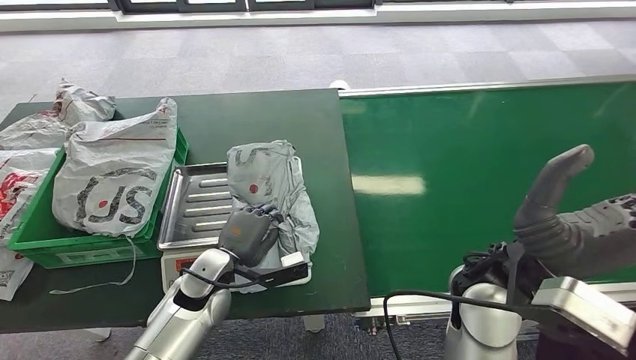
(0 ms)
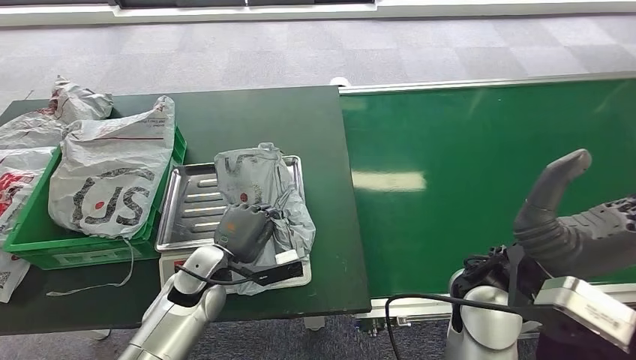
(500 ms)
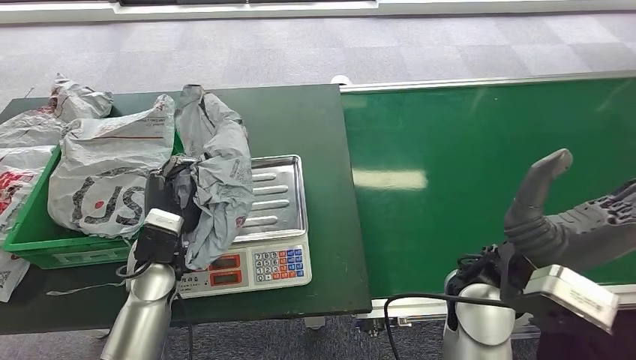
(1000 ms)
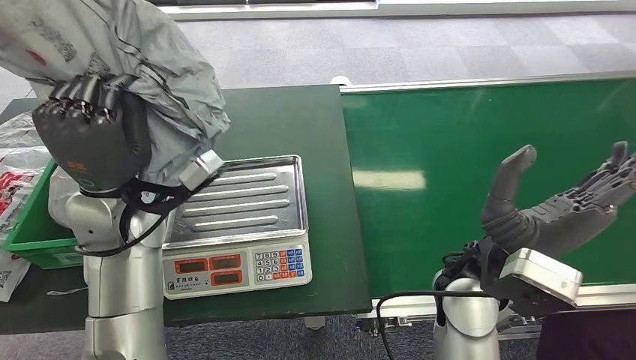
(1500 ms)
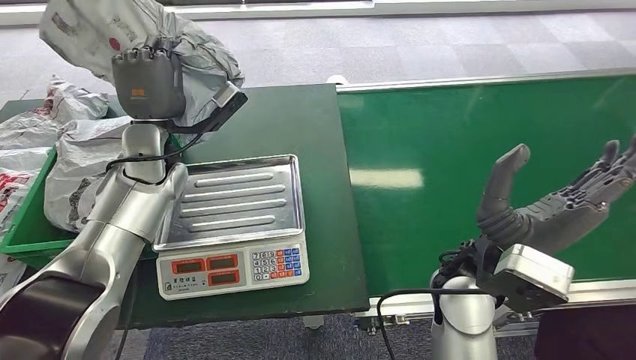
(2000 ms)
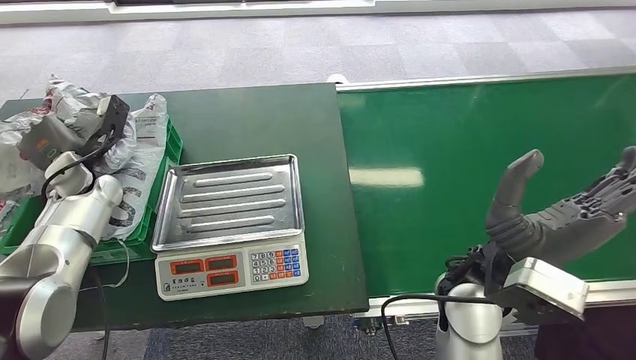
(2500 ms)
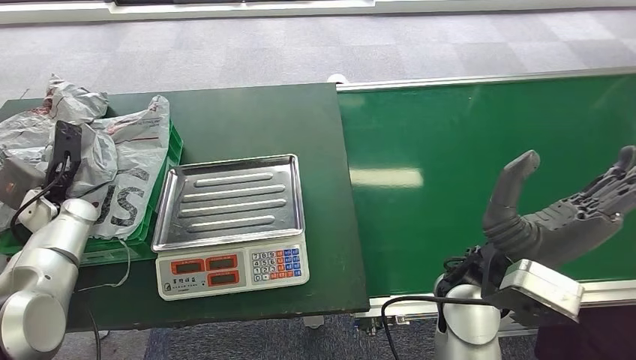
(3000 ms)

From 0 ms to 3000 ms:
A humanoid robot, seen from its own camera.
Step, from 1500 ms to 3000 ms: Place the package into the parcel locker.
